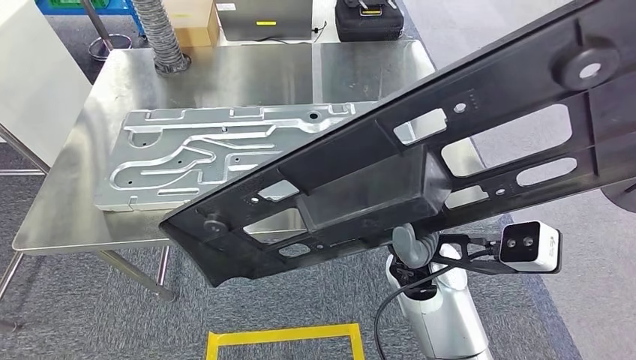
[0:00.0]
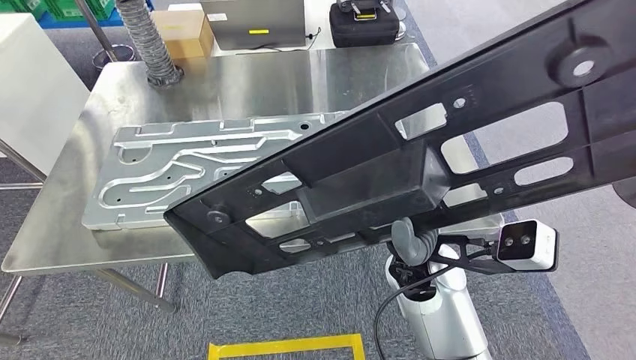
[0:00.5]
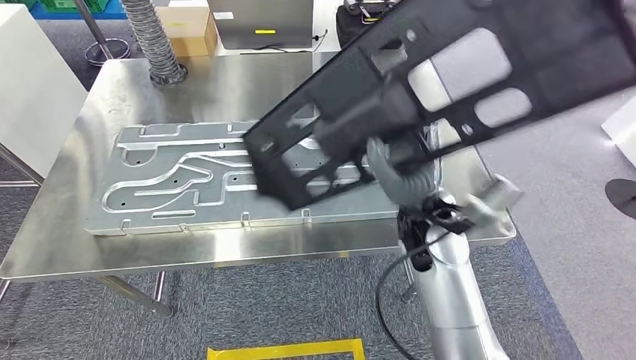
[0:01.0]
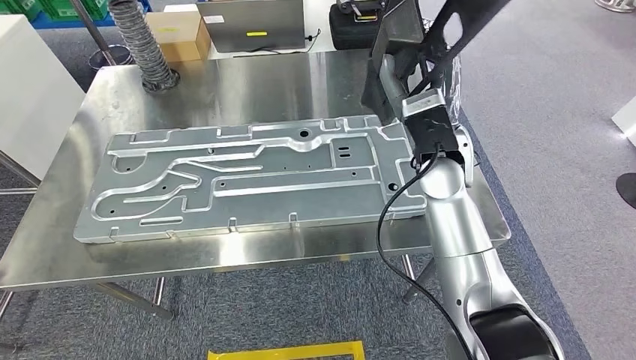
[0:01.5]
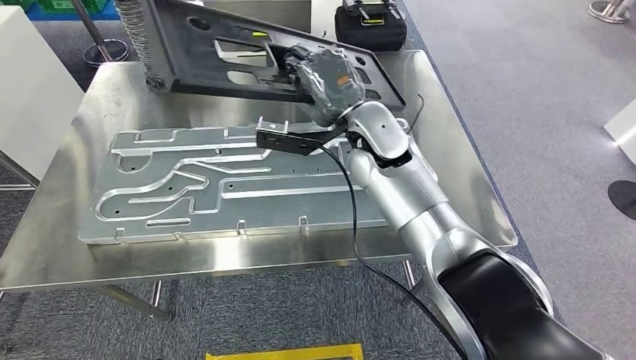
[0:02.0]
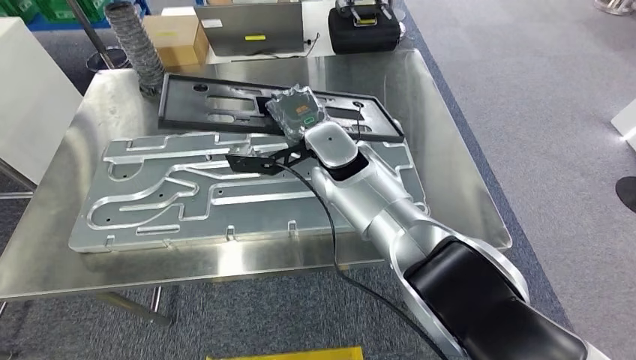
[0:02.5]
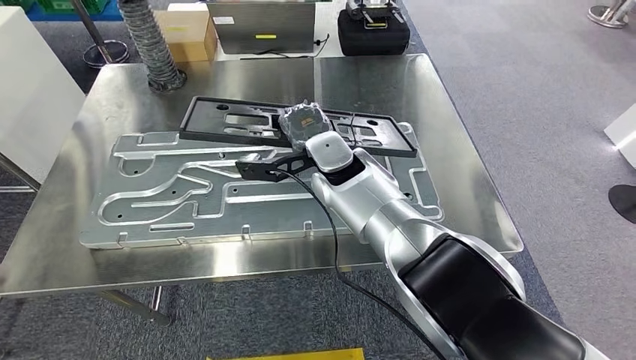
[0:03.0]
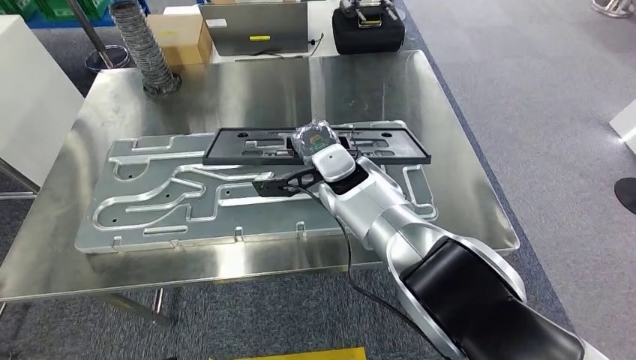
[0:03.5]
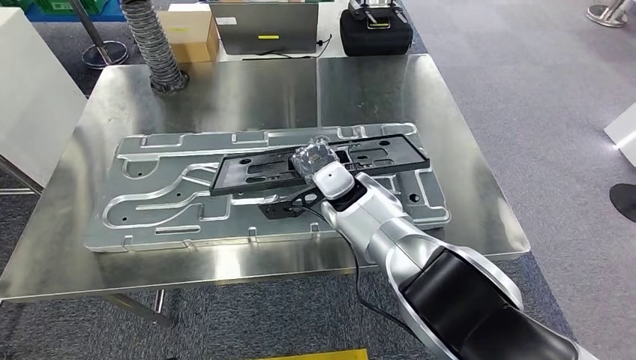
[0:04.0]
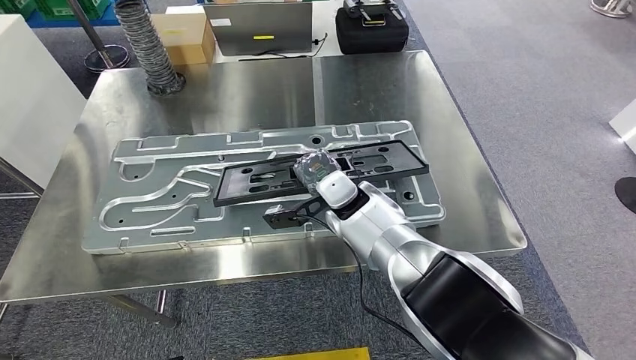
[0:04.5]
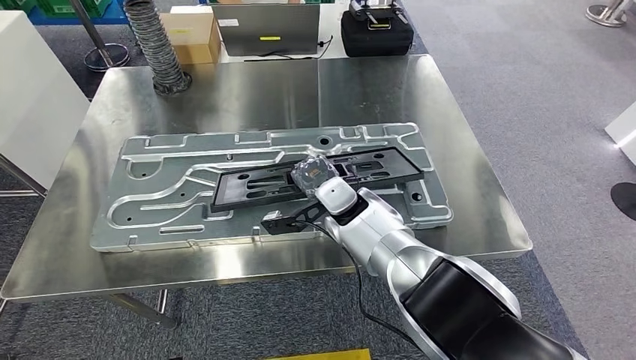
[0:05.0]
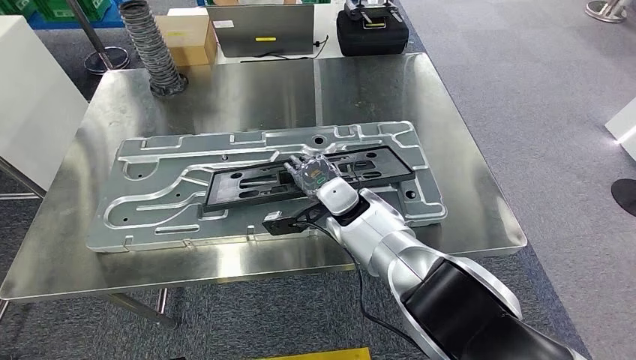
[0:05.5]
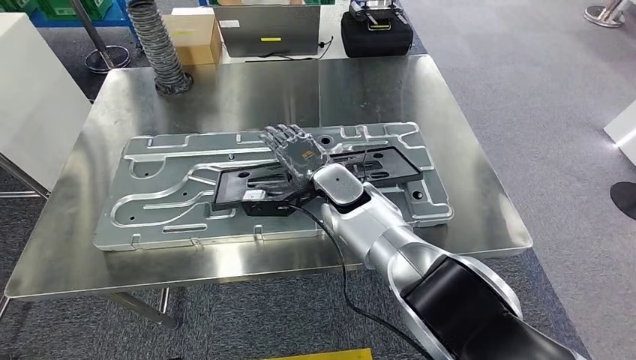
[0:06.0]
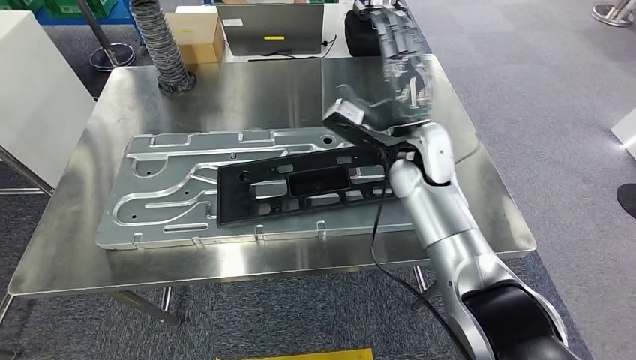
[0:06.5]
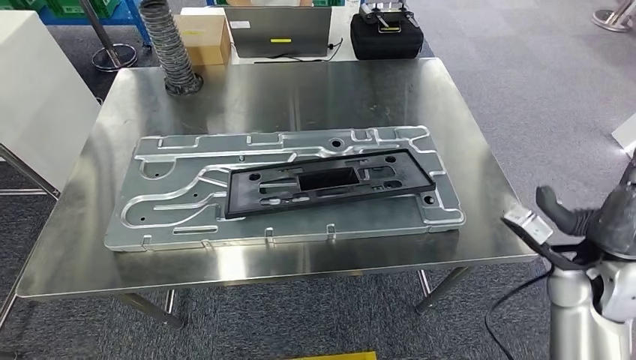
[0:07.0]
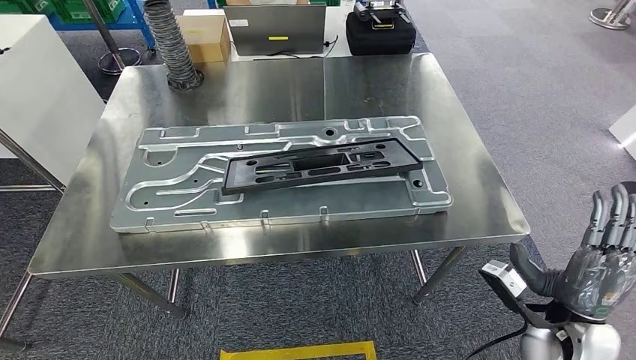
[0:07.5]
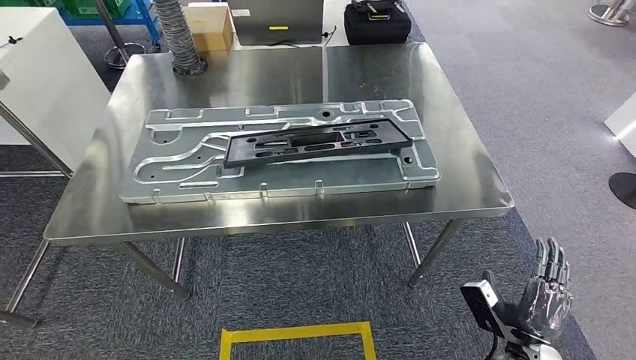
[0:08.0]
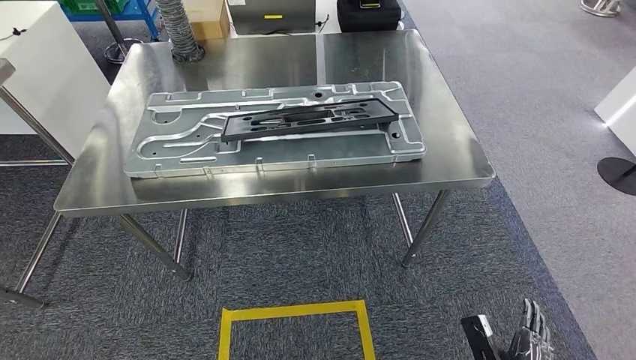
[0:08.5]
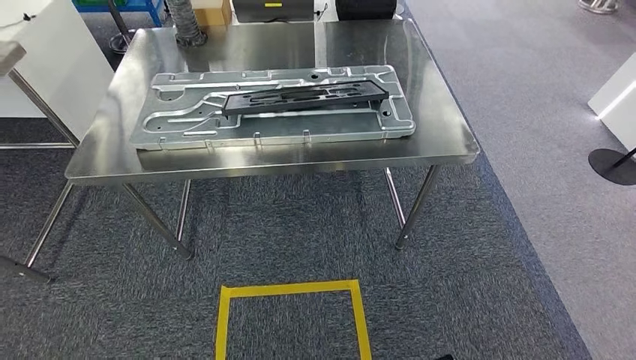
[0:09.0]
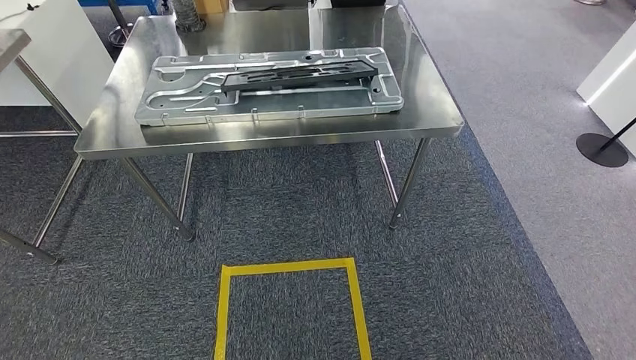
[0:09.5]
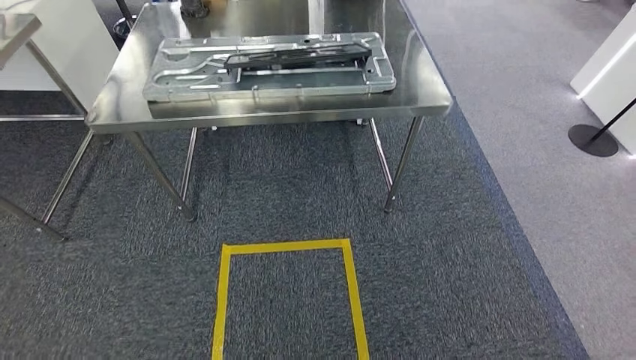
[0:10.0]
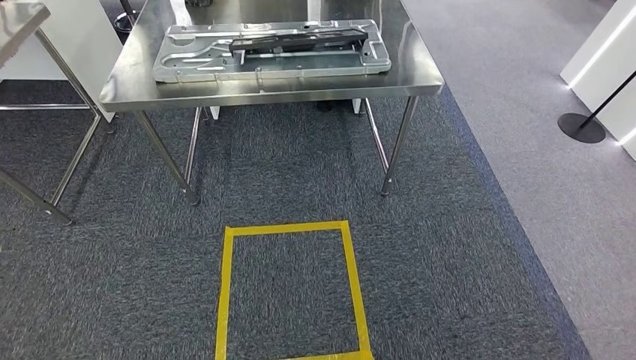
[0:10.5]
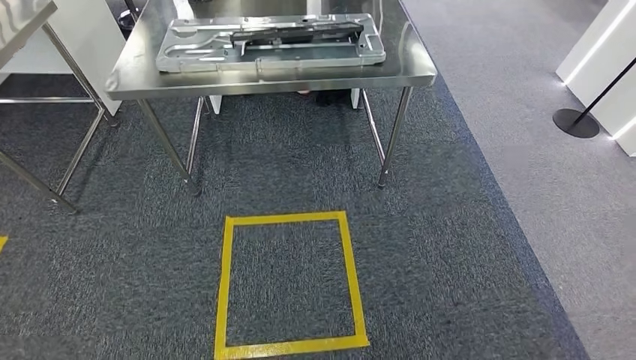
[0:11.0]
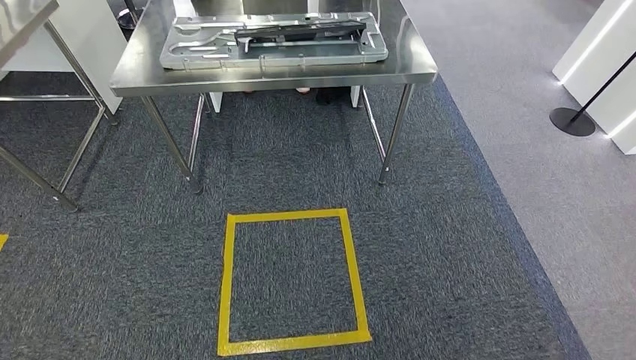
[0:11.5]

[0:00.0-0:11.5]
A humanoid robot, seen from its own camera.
Step, 0:02.0 to 0:06.5: Insert the large parts into the corresponding slots on the workbench.
Step, 0:08.0 to 0:11.5: Return to the initial position at the shelf.
